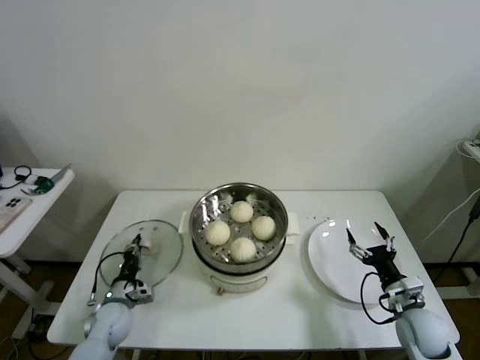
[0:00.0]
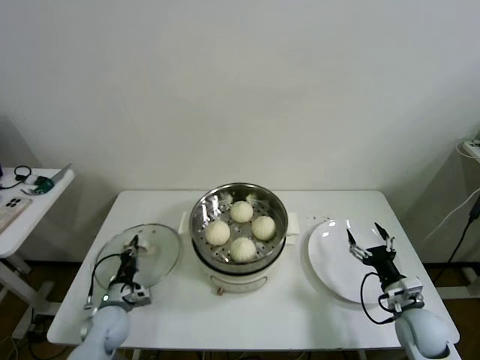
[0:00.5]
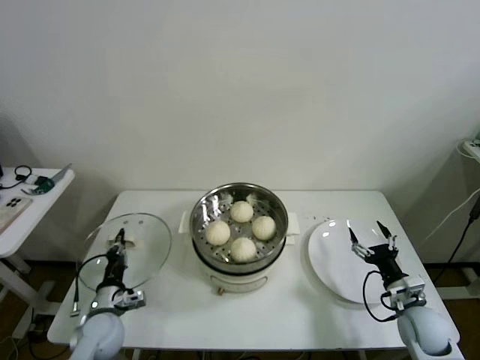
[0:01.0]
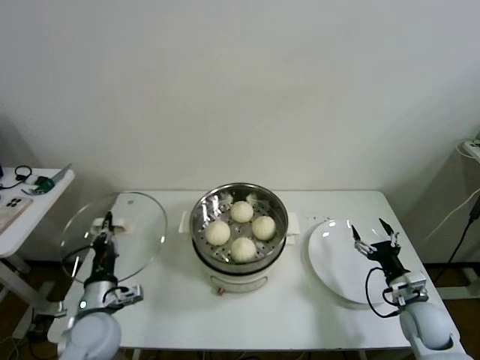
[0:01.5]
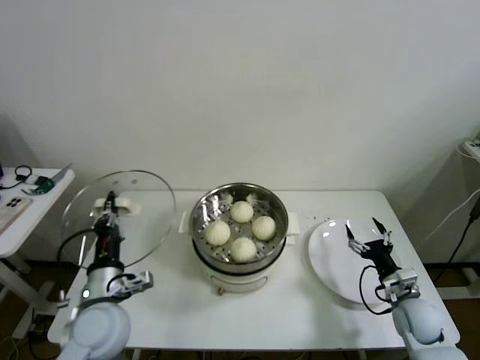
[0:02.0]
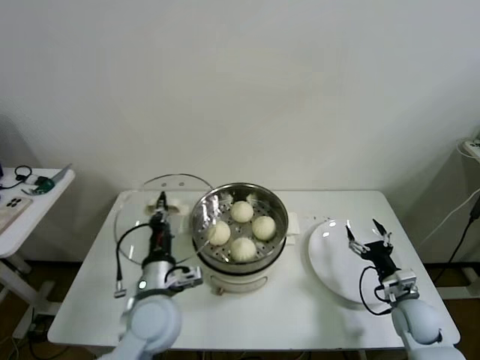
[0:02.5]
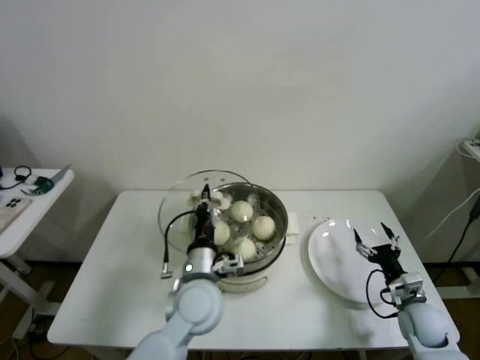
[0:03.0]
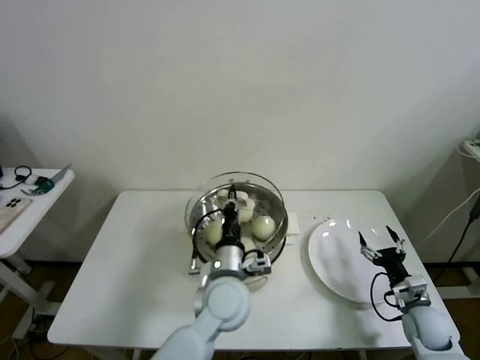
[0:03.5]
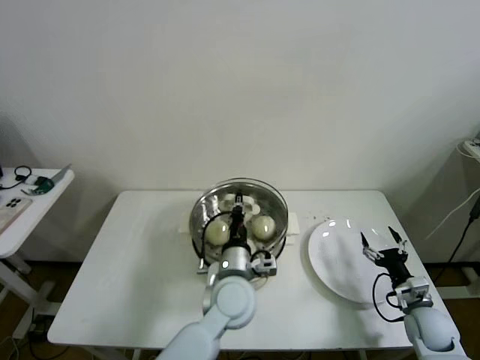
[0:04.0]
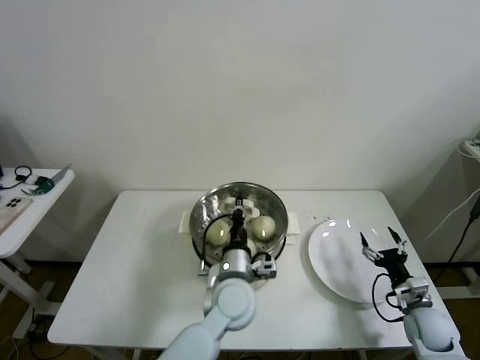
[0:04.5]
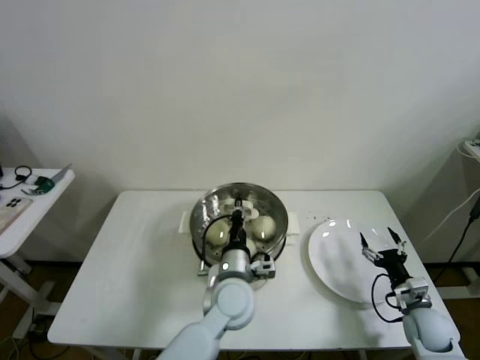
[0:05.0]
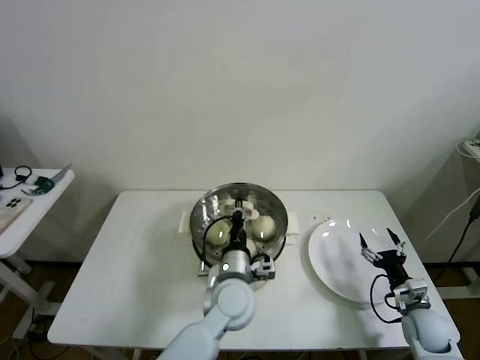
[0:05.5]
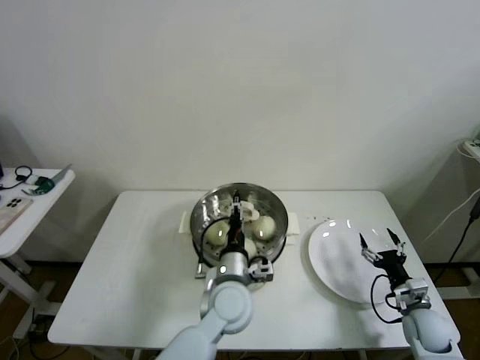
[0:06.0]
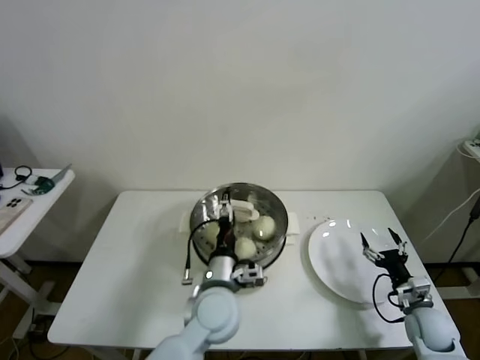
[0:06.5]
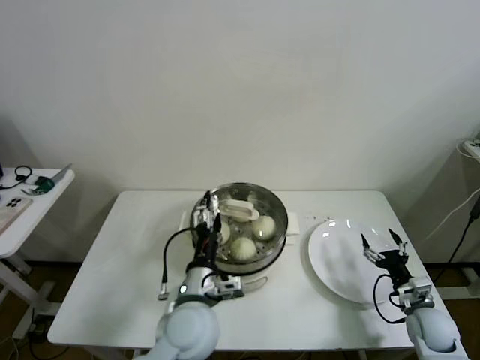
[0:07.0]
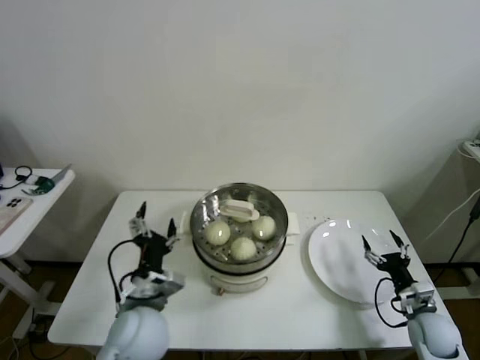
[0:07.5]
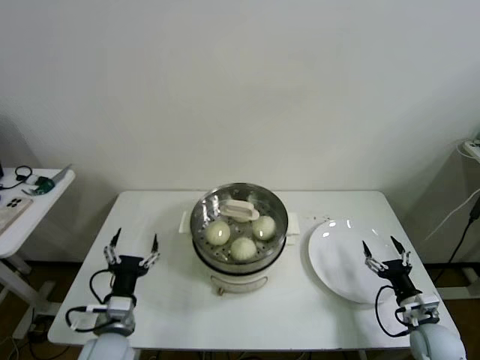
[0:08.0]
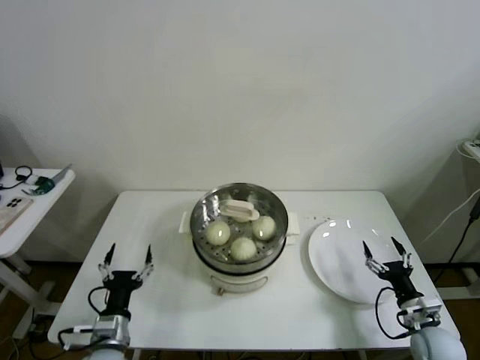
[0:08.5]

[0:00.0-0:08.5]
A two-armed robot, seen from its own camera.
Task of the whole recording: take steamed baozi put them in steamer then cover it.
Step, 0:00.5 to 0:06.0: Place the pot lid on the steamer with left gripper.
0:00.0 to 0:02.0: The left gripper travels upward by roughly 20 cm.
0:02.0 to 0:04.0: The left gripper moves to the right, approximately 25 cm.
0:04.0 to 0:06.5: The left gripper opens its fingers.
0:06.5 to 0:08.5: The left gripper is displaced to the left and downward by some 25 cm.
